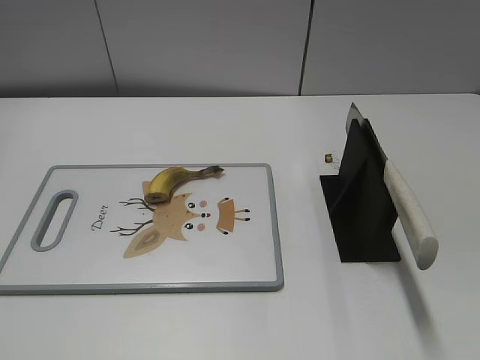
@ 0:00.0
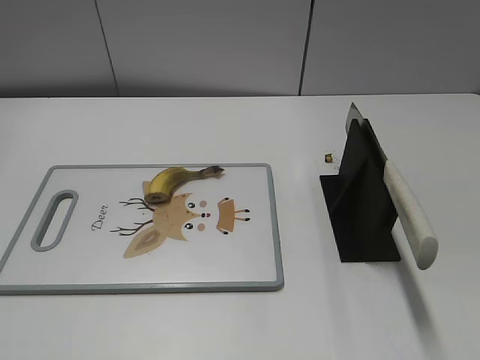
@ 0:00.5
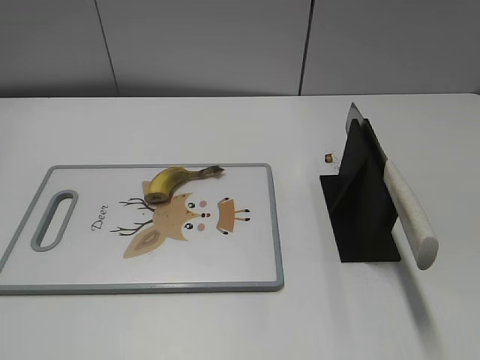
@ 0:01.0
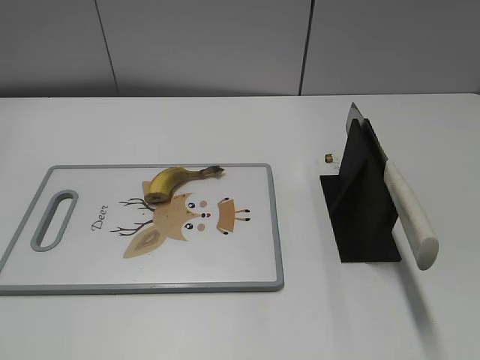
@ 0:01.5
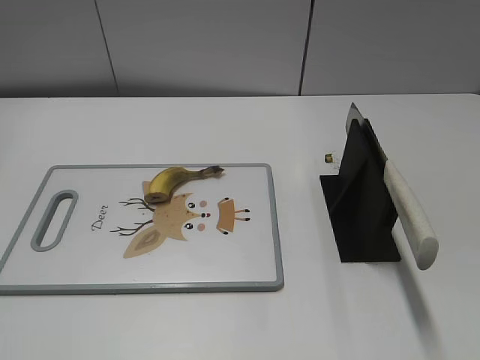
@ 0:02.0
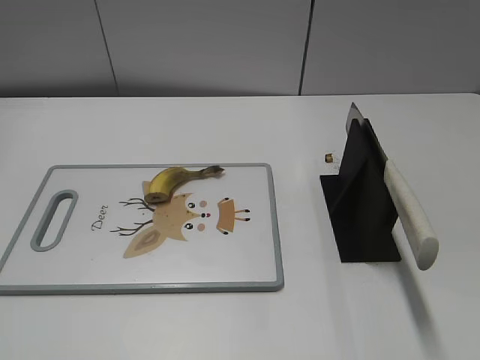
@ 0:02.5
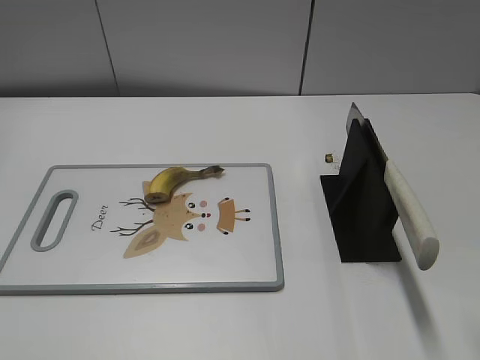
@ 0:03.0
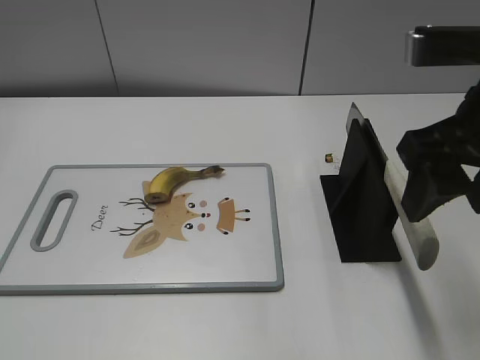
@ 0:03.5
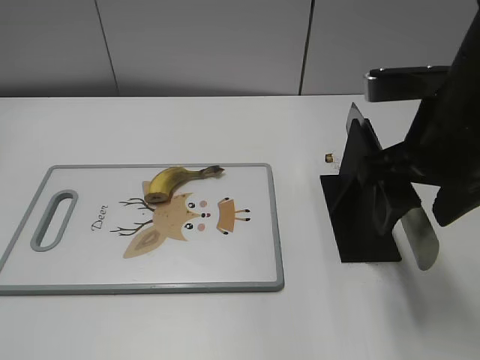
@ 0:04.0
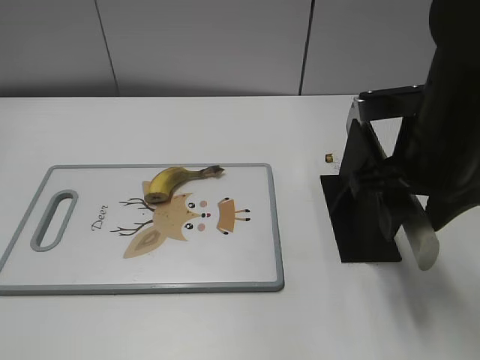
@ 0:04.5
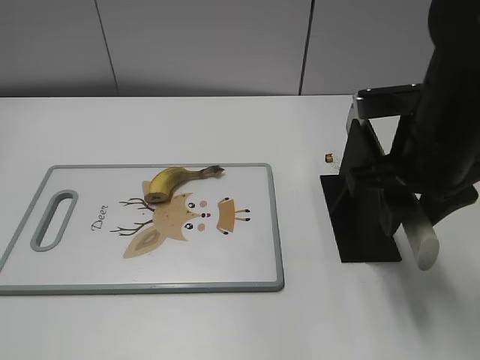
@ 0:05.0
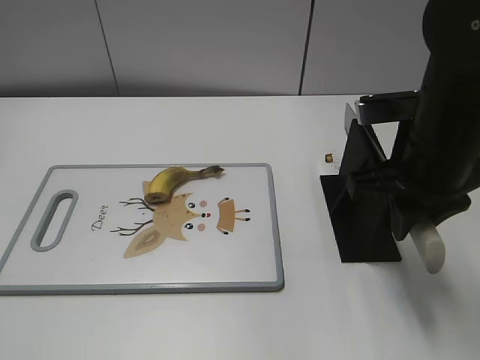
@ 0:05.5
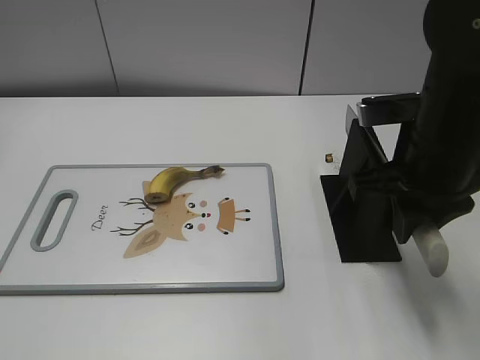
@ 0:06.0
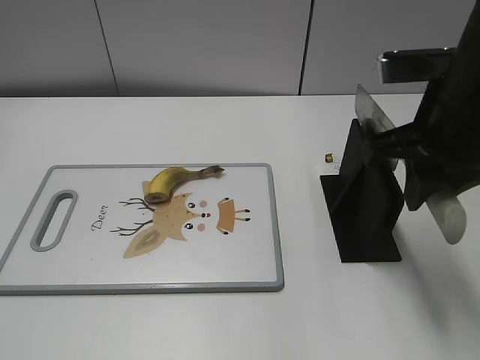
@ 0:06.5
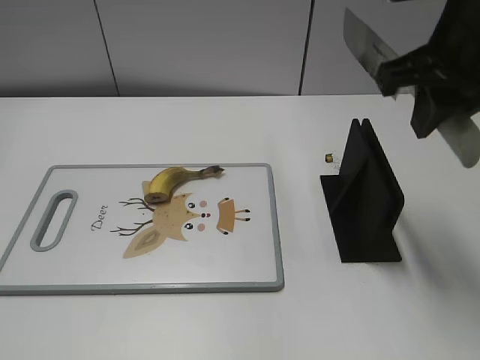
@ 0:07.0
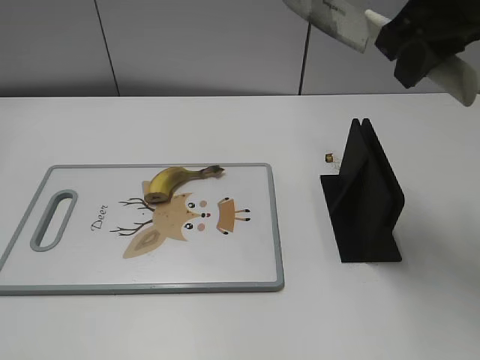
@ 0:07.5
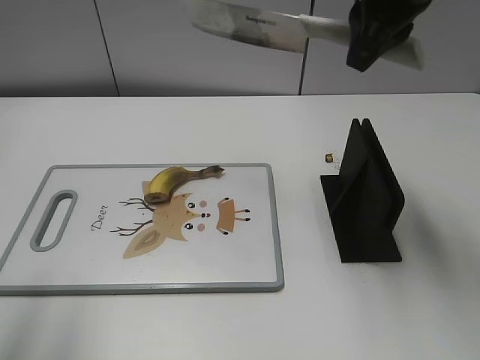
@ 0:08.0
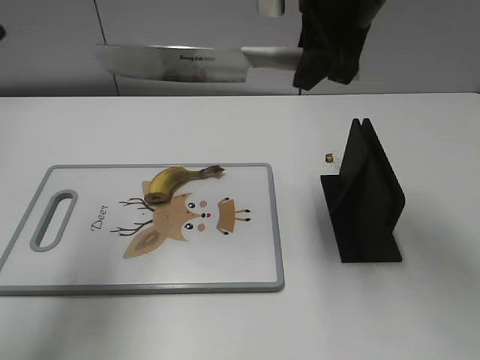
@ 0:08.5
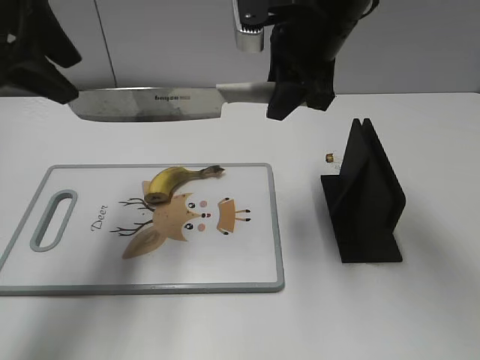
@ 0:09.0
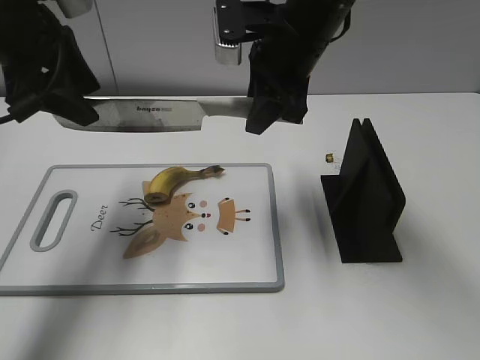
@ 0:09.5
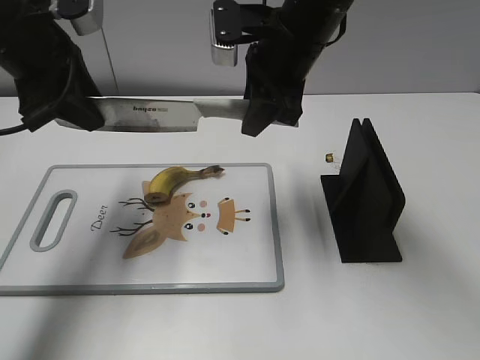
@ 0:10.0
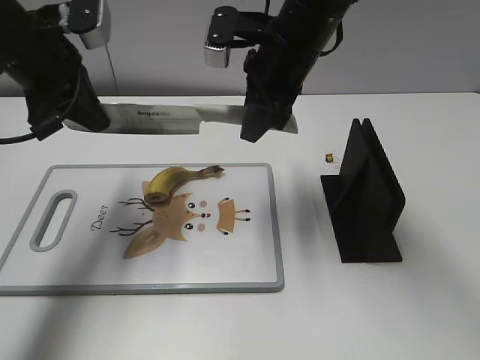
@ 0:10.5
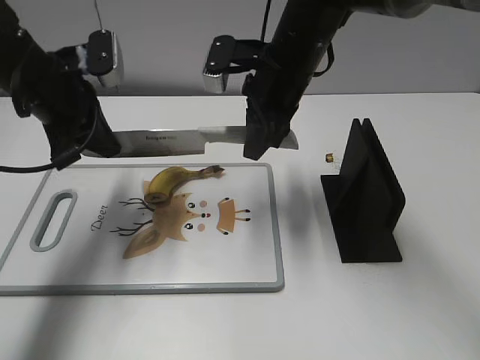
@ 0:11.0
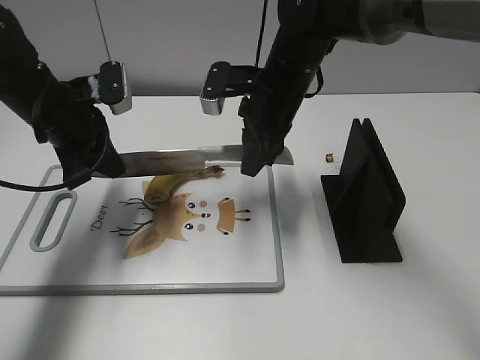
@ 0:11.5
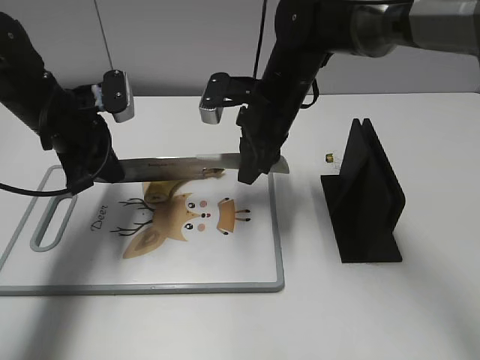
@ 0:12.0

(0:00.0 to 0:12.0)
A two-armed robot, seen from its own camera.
Task of the whole recording: cut banana.
Step, 0:00.0 - 0:07.0: Grab the knife handle with your right hand.
0:02.0 - 0:04.0: The right gripper moves forward and to the left, some 25 cm.
0:04.0 - 0:06.0: The right gripper closes its fingers.
0:06.0 - 0:08.0: The right gripper shifts roughly 15 cm upward and forward, while the left gripper travels forward and upward by about 20 cm.
0:08.0 - 0:10.0: The right gripper heads downward and to the left, covering roughly 10 cm. The left gripper shifts roughly 25 cm forward and downward.
0:10.0 - 0:12.0: The grippers both shift downward by approximately 10 cm. The left gripper closes up.

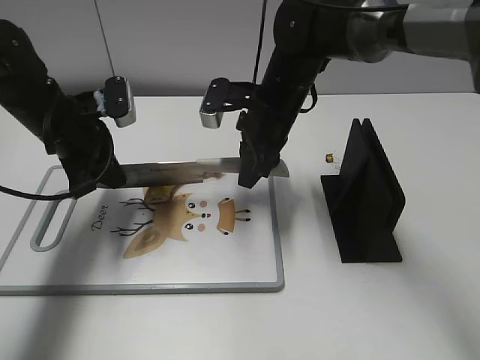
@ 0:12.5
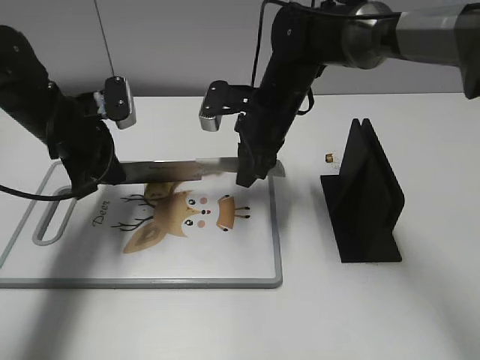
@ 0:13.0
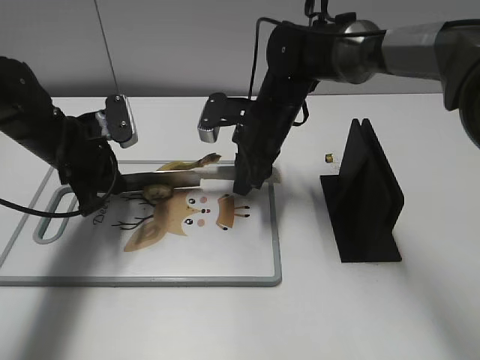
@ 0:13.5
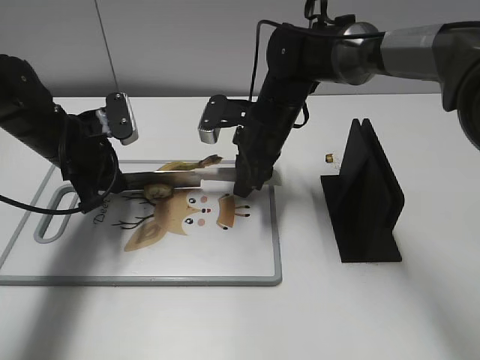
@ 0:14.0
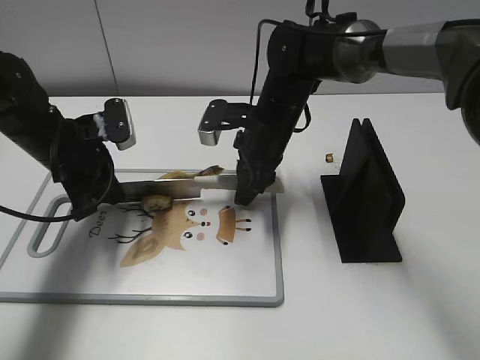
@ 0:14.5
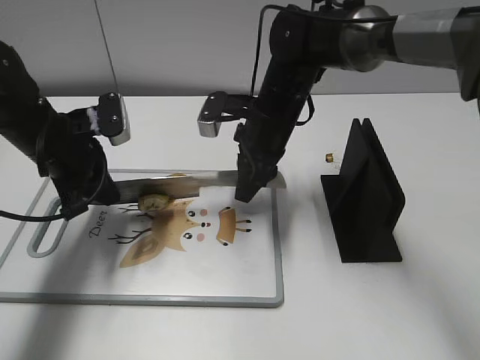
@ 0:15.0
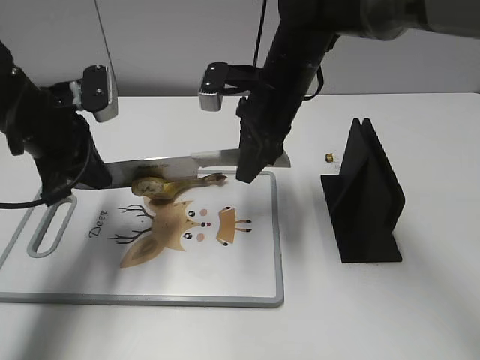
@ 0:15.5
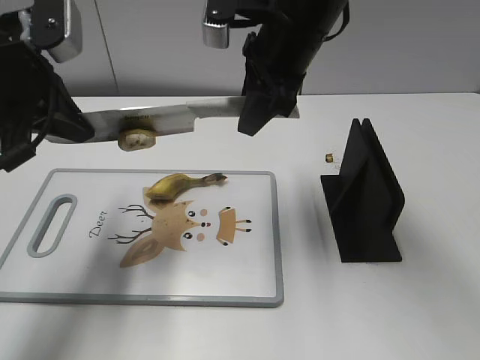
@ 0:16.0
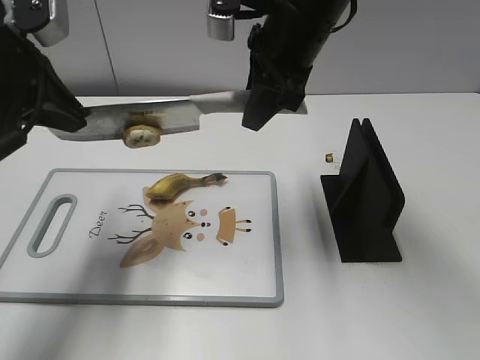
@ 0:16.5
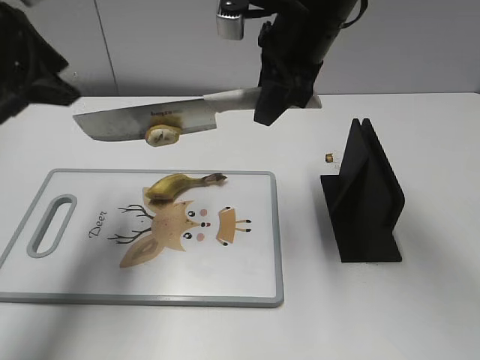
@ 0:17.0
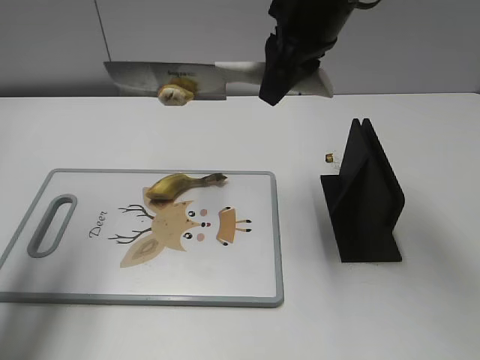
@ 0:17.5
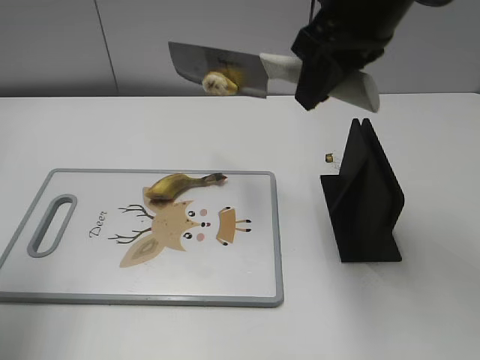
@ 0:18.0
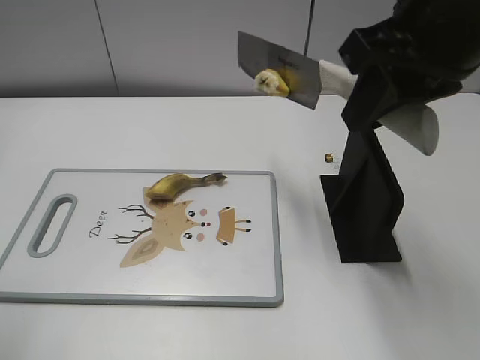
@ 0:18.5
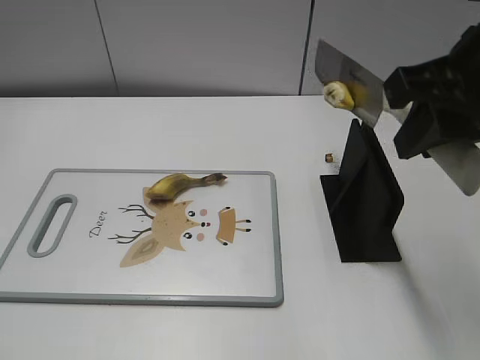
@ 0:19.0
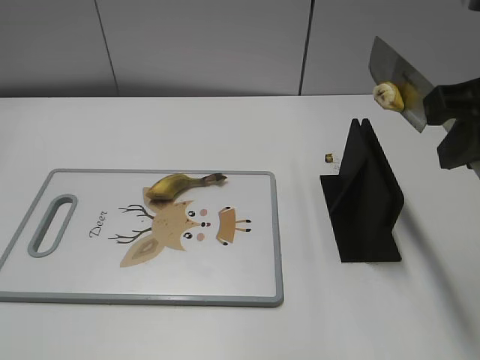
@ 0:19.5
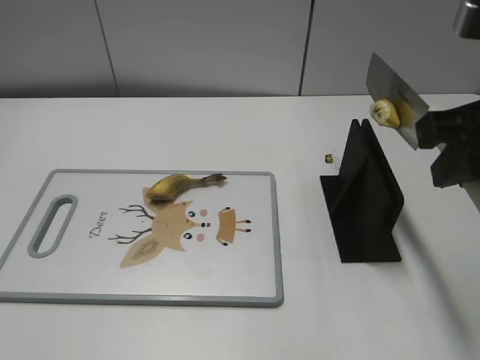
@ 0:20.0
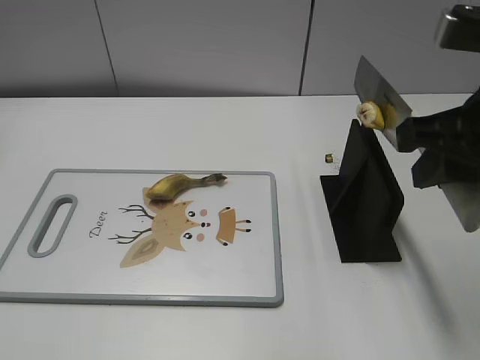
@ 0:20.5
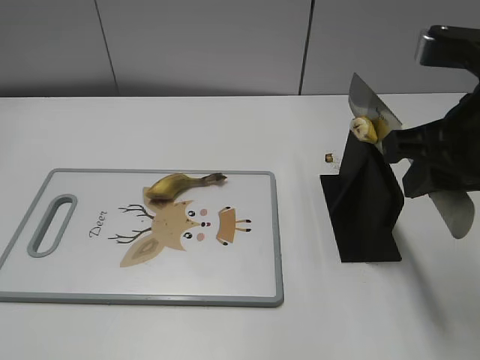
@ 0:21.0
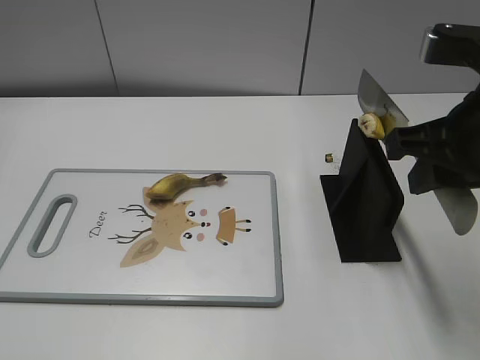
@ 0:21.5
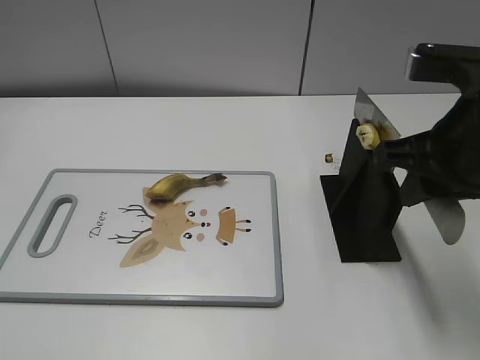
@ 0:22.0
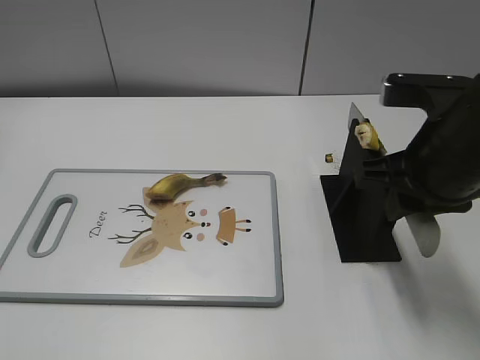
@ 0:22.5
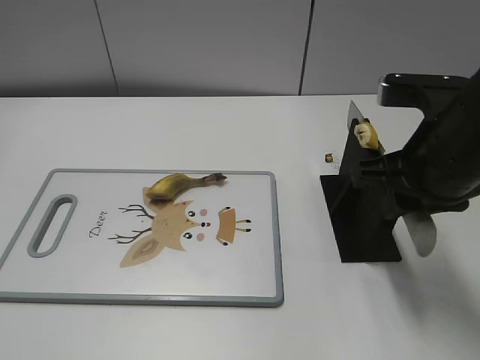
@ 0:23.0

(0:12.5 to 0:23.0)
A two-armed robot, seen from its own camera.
Task of the whole recording: cut banana.
Step, 0:13.0 - 0:18.0: Cut the banana with your right hand.
Step, 0:18.5 - 0:20.5: Secure the blade with your left hand.
0:14.5 - 0:16.5: The left gripper shifts about 15 cm upward and backward, while the right gripper heads upward, covering roughly 15 cm.
0:16.5 - 0:19.0: The right gripper heads backward and to the right, covering some 20 cm. The left gripper goes about 25 cm backward, and opens.
0:19.0 - 0:21.0: The right gripper is displaced downward by roughly 5 cm.
0:21.0 - 0:23.0: The right gripper shifts by some 5 cm.

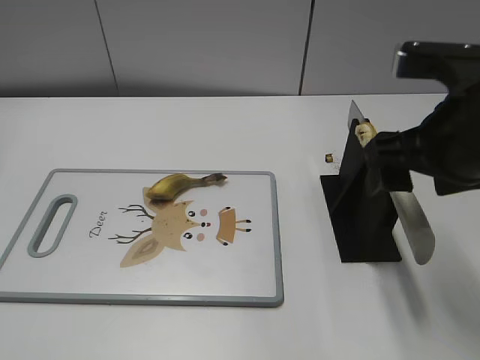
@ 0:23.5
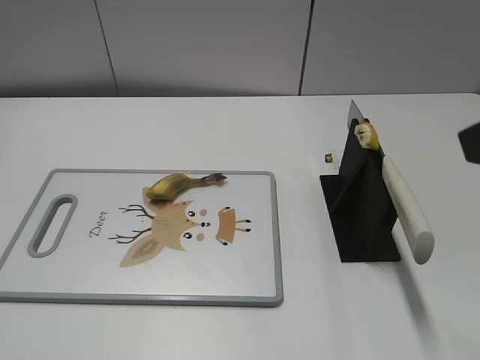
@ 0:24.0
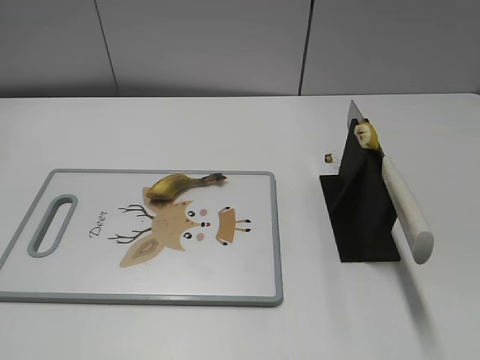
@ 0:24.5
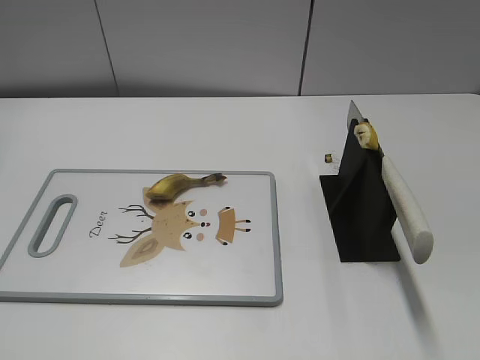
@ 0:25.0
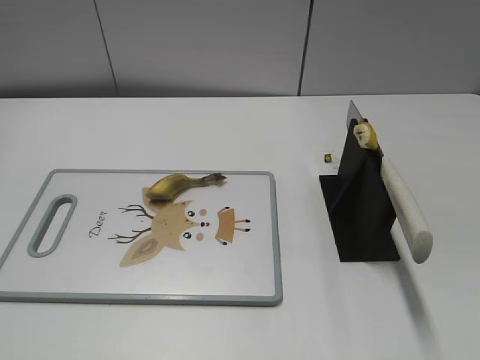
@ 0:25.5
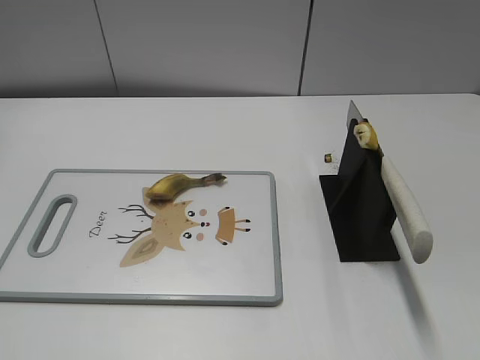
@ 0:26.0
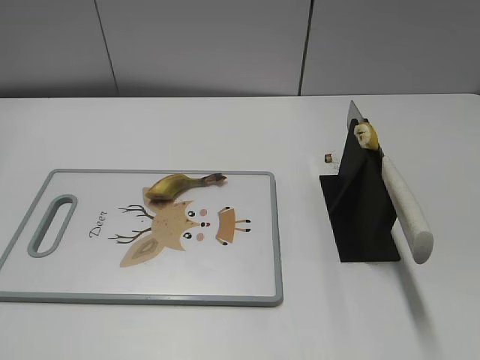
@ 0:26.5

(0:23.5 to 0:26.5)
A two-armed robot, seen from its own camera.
Task of the whole recording: cut banana.
Step, 0:23.5 - 0:26.5: Place the knife on the storage rack with your right hand.
0:23.5 - 0:25.0: The right gripper heads backward and to the right, covering about 25 cm.
